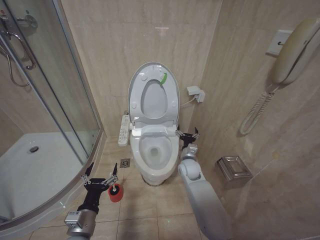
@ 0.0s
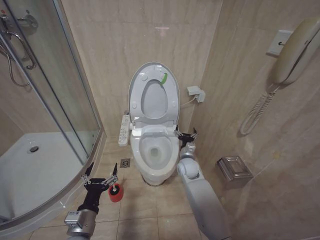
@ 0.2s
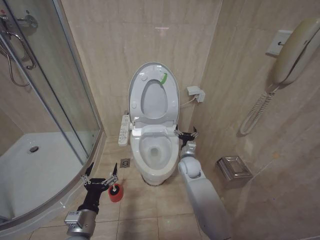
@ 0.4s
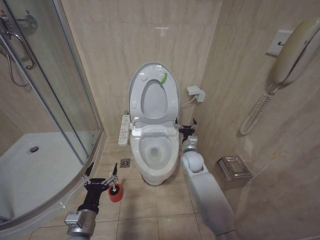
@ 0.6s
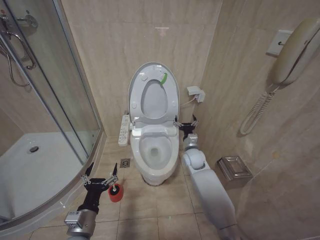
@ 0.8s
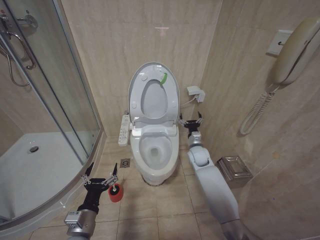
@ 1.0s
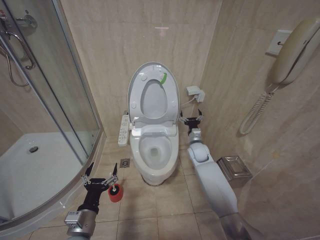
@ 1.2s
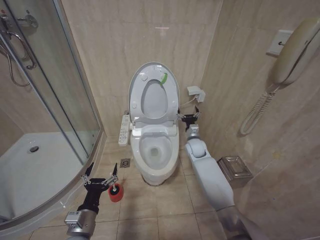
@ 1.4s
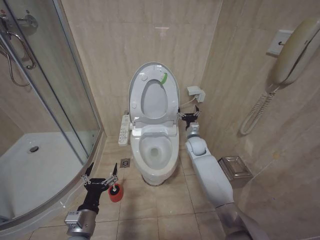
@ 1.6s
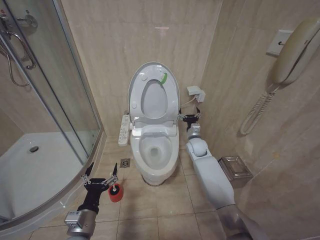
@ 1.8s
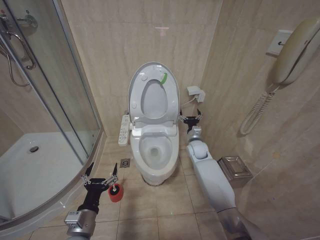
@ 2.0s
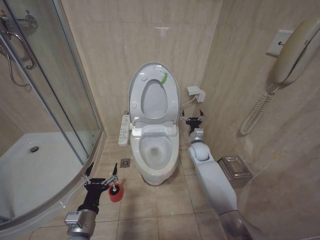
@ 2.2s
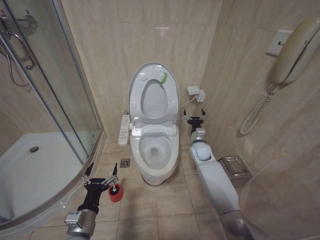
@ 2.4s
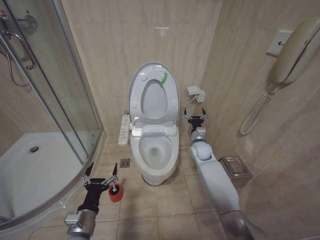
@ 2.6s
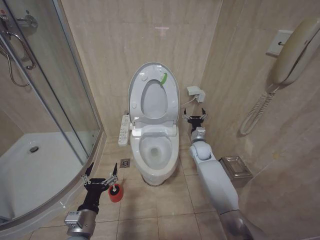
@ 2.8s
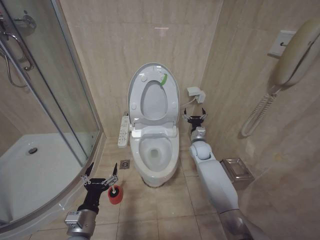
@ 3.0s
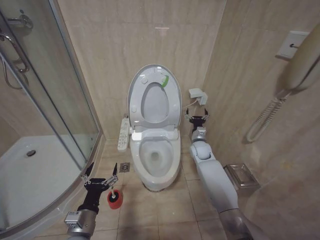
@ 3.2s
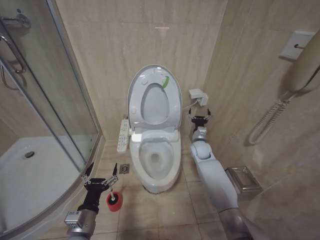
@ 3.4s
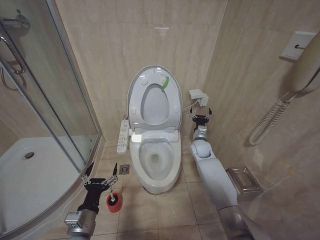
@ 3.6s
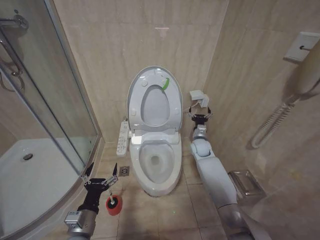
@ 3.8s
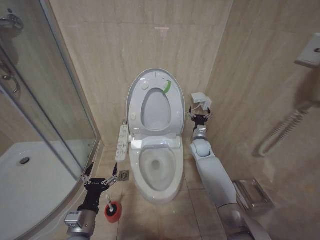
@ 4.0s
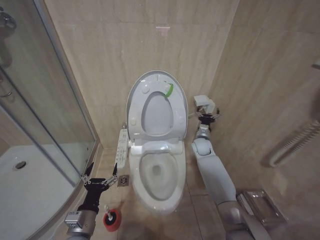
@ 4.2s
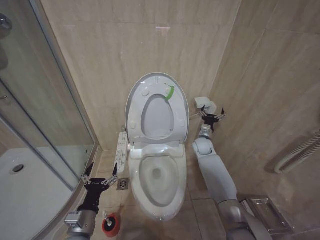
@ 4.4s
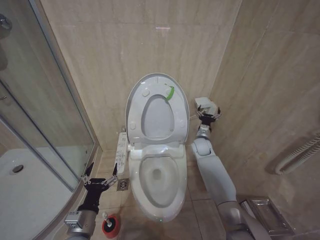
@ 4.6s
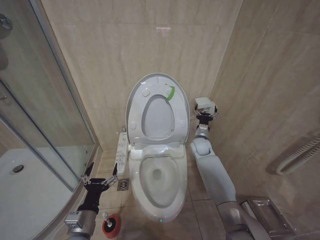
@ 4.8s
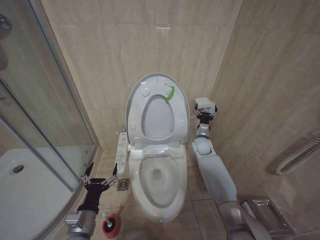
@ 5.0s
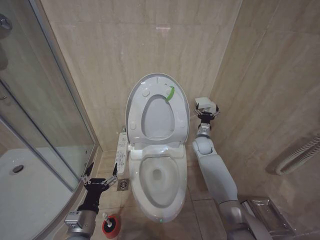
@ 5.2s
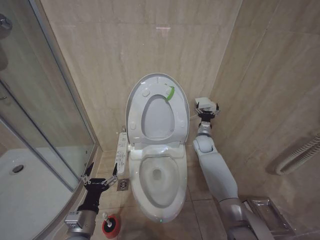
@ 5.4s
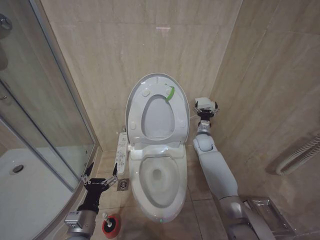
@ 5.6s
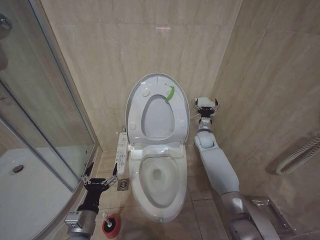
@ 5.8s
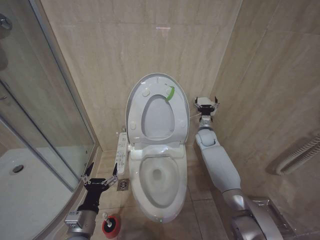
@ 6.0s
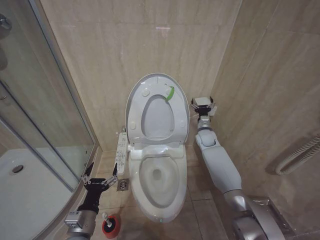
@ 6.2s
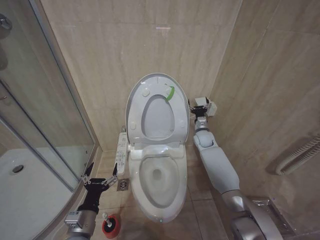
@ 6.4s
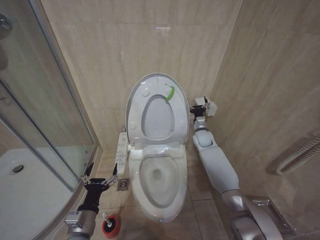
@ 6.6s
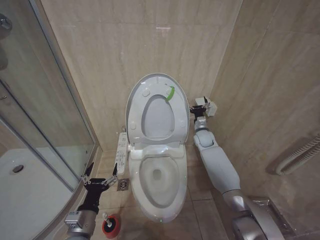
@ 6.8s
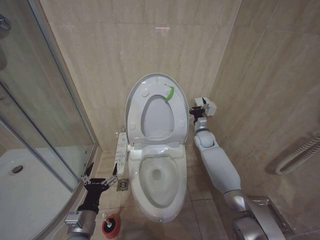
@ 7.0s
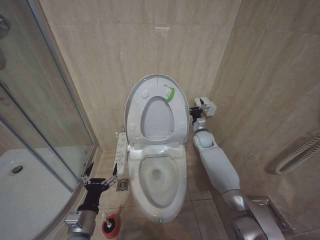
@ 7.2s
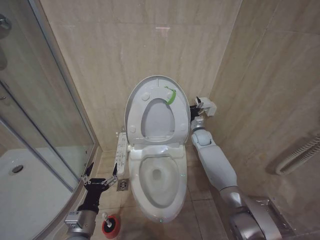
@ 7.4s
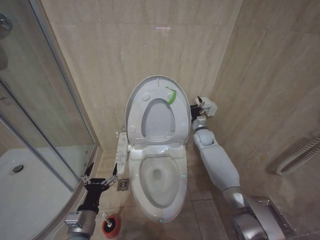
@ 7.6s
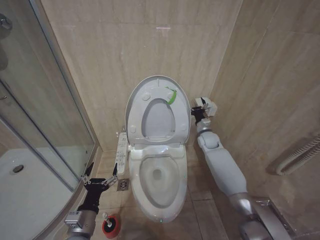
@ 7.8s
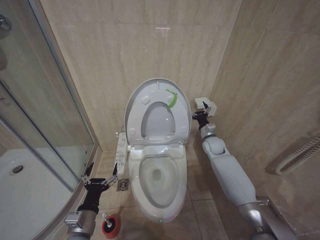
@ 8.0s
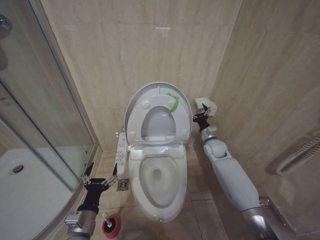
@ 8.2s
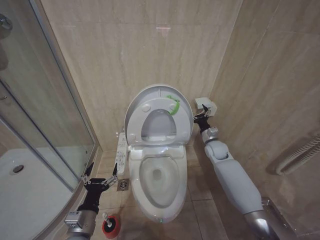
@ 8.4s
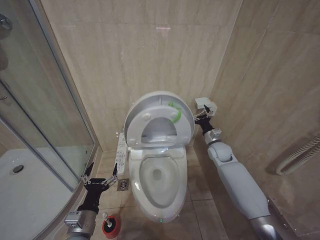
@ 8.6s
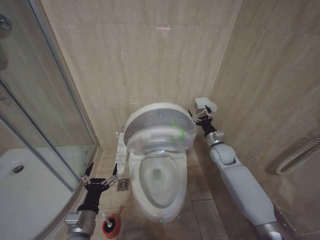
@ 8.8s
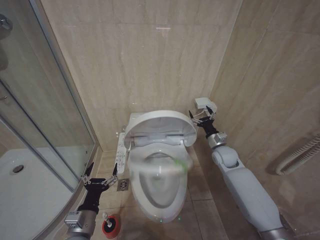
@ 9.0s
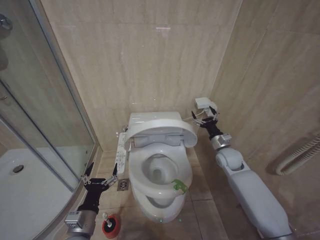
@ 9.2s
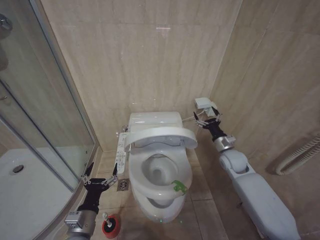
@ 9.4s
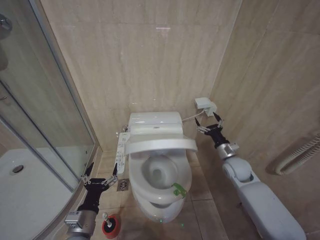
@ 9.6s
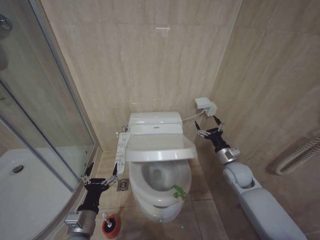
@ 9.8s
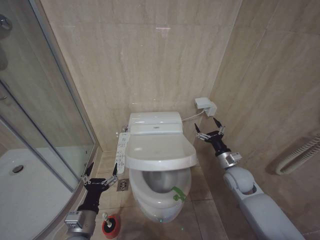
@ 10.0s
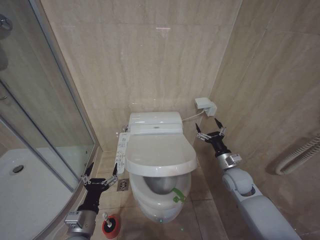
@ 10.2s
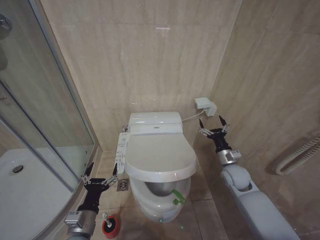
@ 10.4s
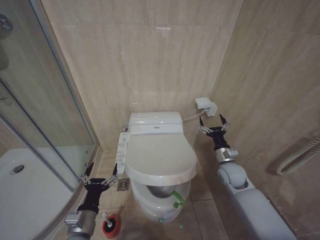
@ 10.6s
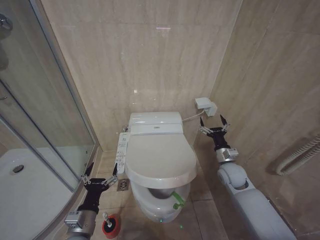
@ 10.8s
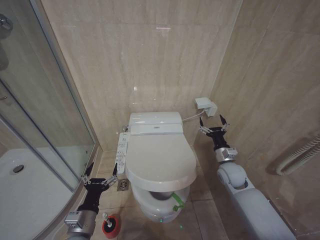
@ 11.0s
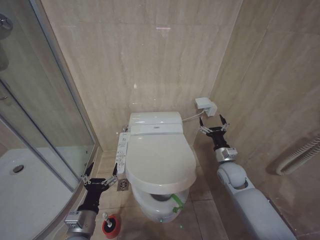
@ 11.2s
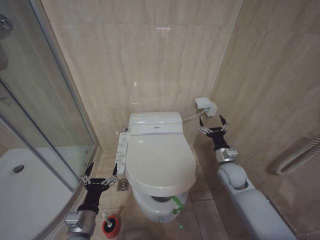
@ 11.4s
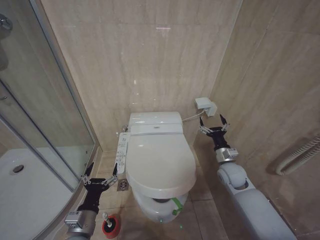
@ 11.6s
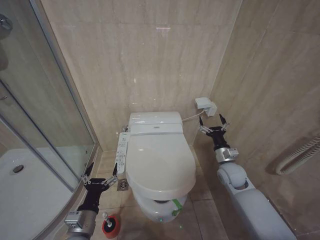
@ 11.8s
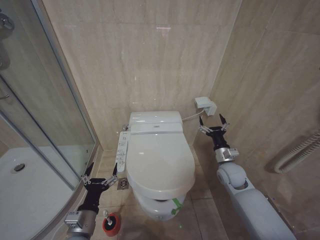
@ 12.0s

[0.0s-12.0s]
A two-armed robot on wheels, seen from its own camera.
Task of the whole recording: Open the toilet lid, clean the toilet bowl with a toilet brush, close the toilet lid, and flush.
0.0s to 1.6s: The right gripper shifts roughly 10 cm forward and upward.
1.6s to 3.0s: The grippers make only small movements.
4.4s to 6.0s: The grippers make only small movements.
7.6s to 9.0s: The right gripper travels backward and to the right by roughly 10 cm.
9.0s to 10.4s: The right gripper moves backward, roughly 10 cm.
10.4s to 12.0s: The grippers make only small movements.

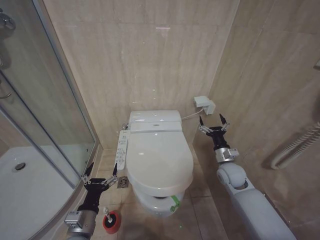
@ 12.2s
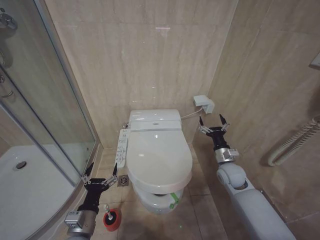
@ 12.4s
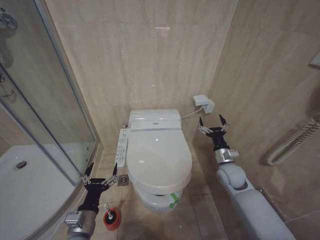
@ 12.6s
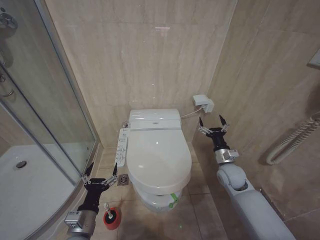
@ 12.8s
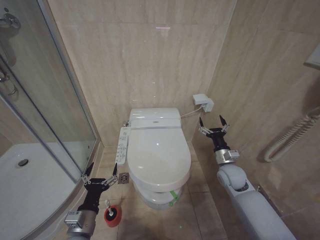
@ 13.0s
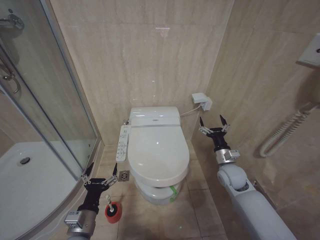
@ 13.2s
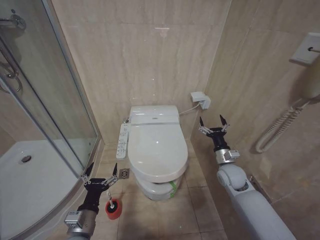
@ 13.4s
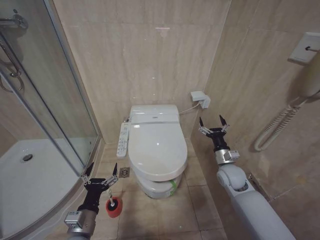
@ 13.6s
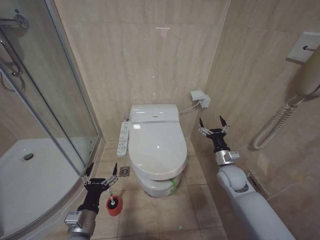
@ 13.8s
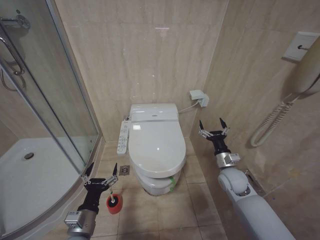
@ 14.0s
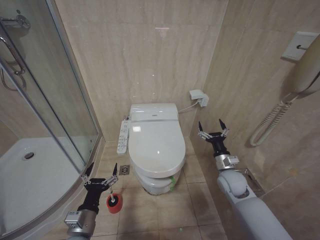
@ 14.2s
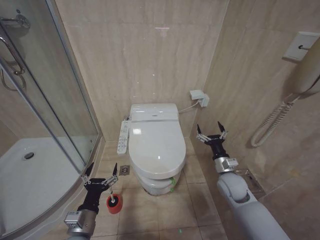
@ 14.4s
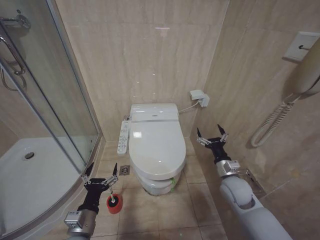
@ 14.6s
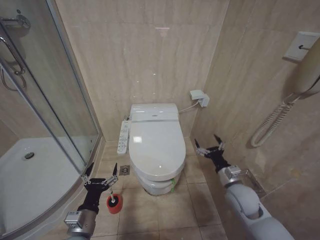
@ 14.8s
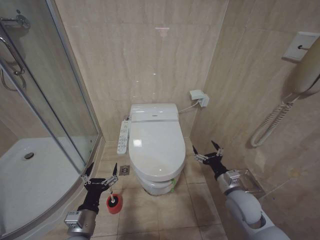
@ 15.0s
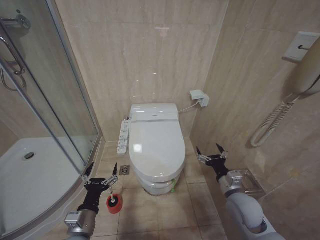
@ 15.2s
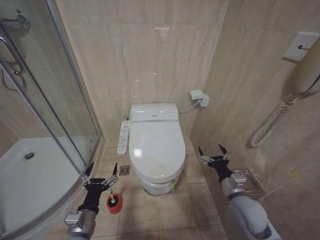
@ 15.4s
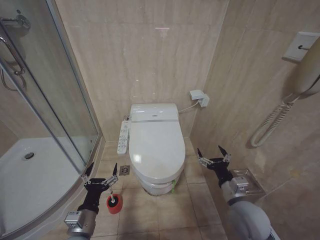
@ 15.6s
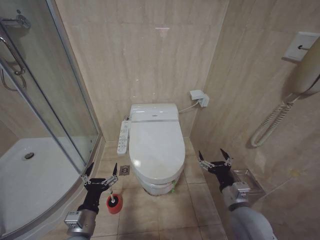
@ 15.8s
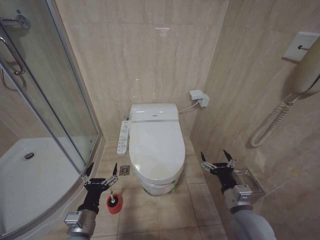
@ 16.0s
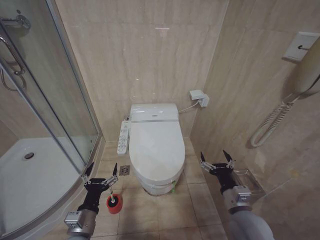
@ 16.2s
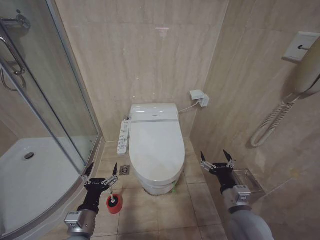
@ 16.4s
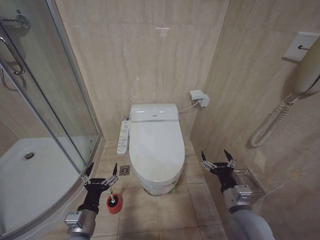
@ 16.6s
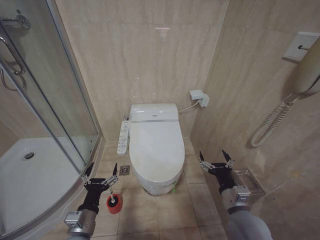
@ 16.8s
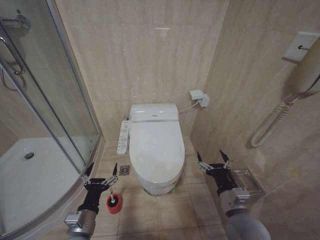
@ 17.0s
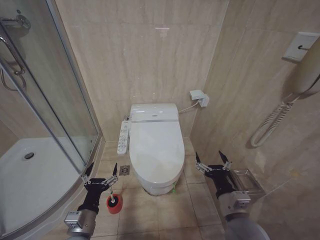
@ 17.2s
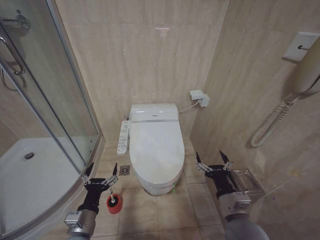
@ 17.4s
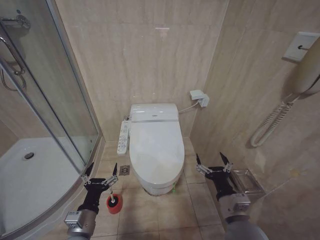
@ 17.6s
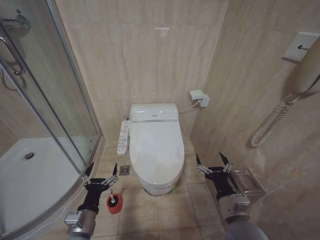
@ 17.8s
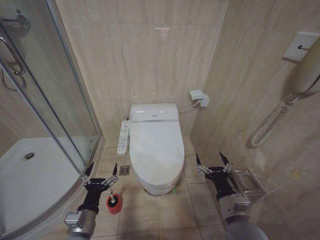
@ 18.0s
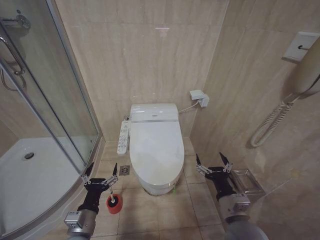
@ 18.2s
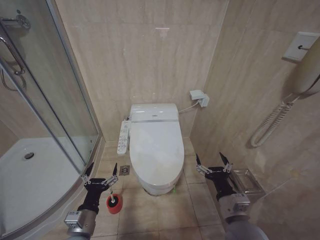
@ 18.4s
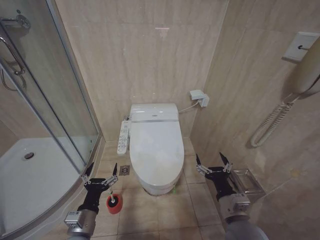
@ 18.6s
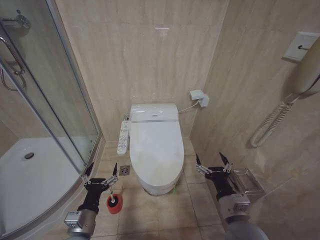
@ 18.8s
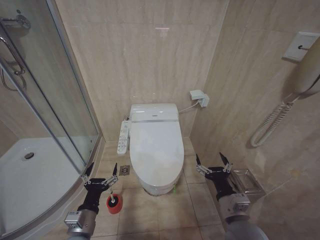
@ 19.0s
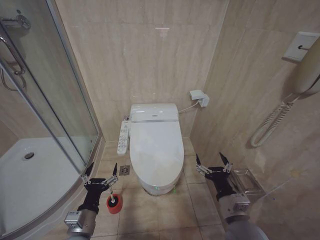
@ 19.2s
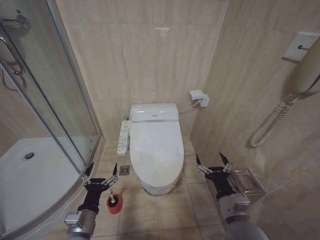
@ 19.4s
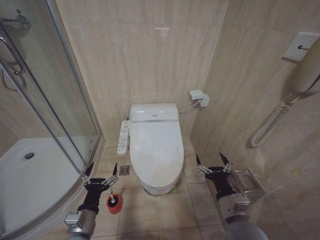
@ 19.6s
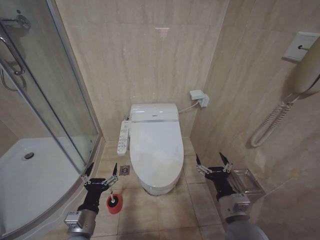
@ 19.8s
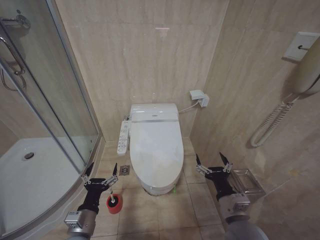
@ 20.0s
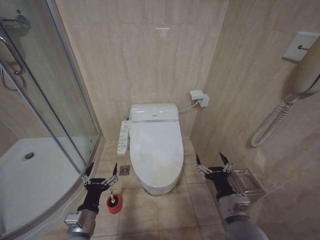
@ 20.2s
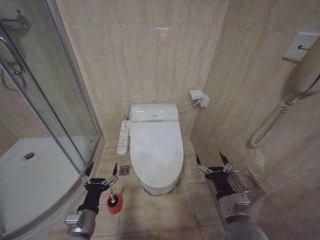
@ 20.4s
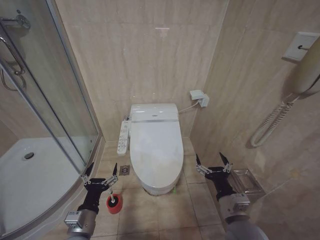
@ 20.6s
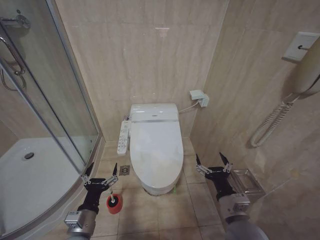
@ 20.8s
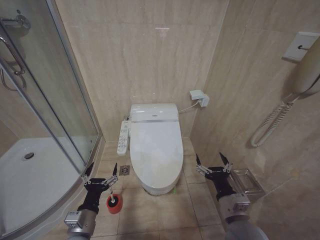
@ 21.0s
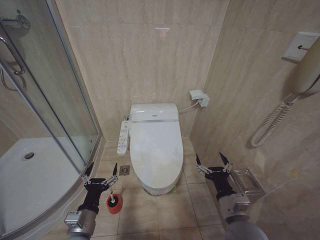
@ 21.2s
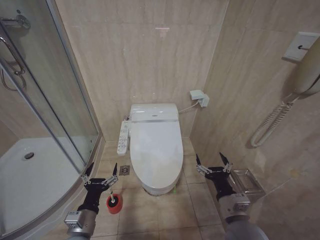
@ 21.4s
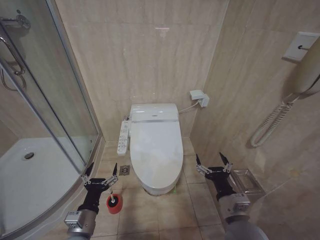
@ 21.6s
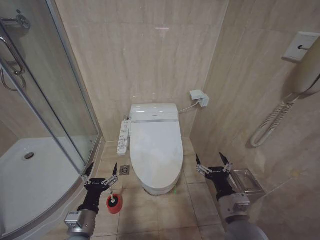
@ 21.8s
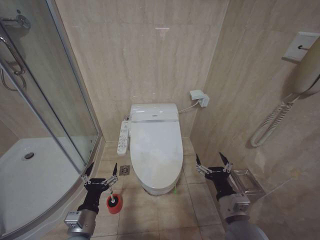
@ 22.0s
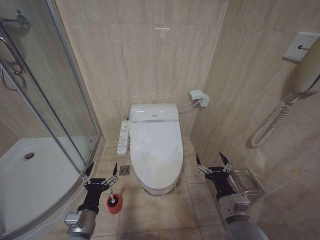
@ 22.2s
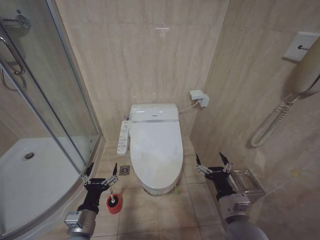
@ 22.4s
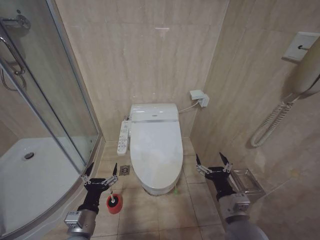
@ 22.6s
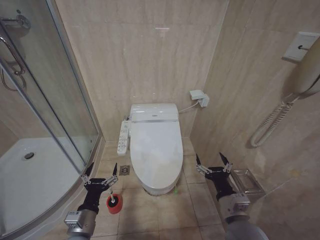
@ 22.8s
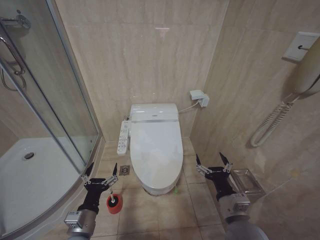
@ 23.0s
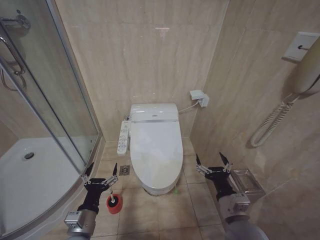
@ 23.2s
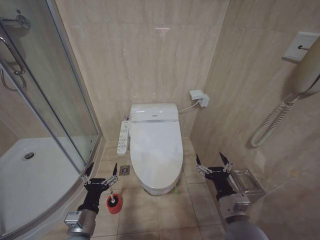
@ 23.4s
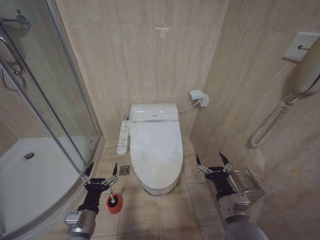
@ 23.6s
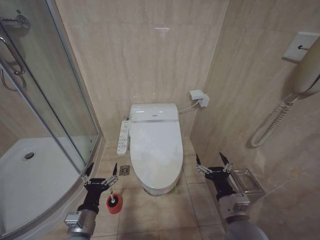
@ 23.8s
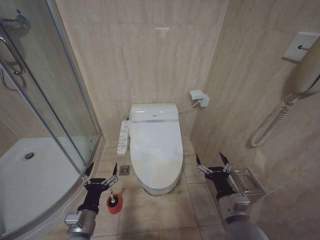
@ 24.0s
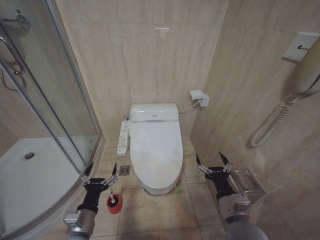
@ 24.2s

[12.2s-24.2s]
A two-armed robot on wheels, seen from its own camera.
Task of the whole recording: Open the toilet lid, clean the toilet bowl with a toilet brush, close the toilet lid, and flush.
12.2s to 13.8s: Both grippers stay about where they are.
13.8s to 15.2s: The right gripper travels backward by roughly 10 cm.
15.2s to 16.6s: The right gripper is displaced backward by roughly 5 cm.
16.6s to 18.2s: The grippers move only a little.
18.2s to 24.2s: Both grippers stay about where they are.
